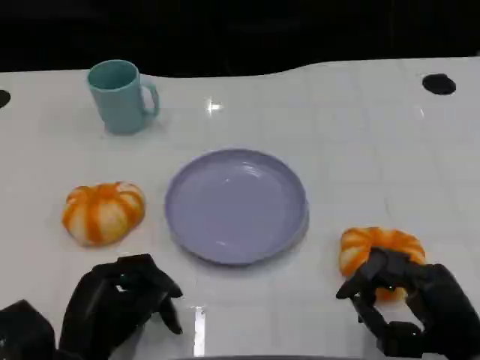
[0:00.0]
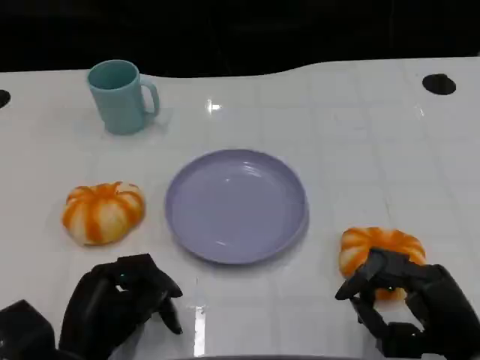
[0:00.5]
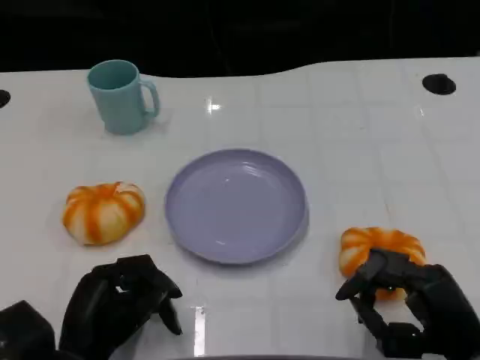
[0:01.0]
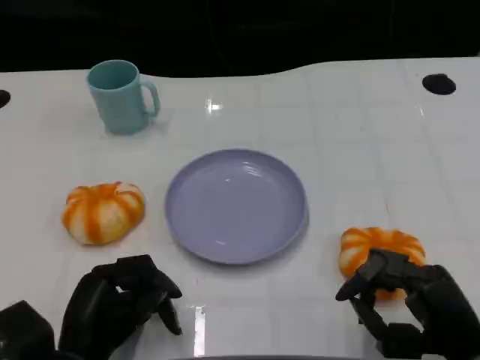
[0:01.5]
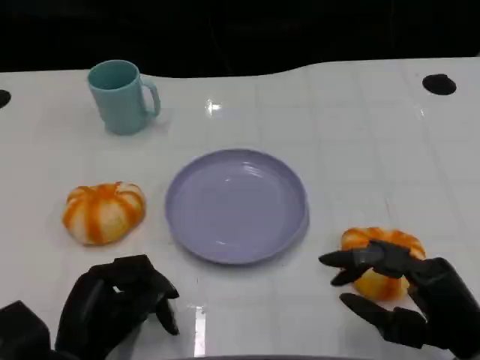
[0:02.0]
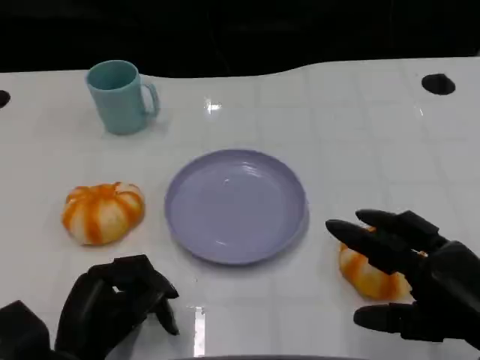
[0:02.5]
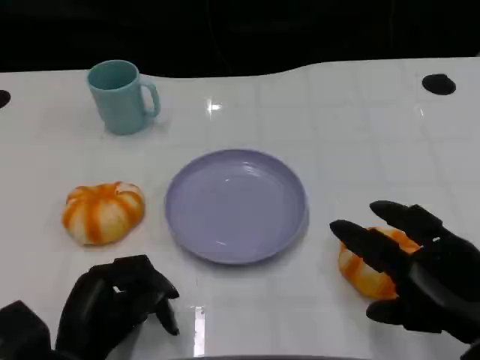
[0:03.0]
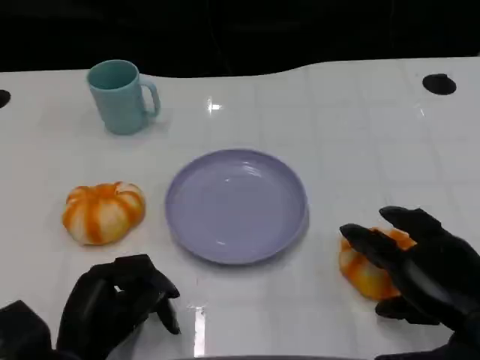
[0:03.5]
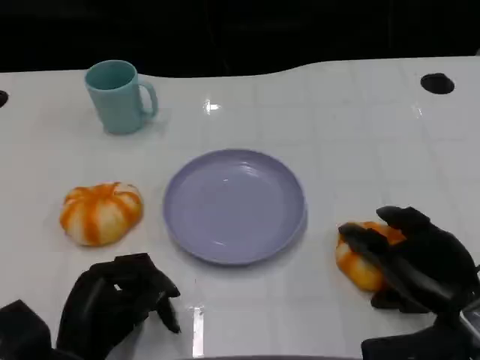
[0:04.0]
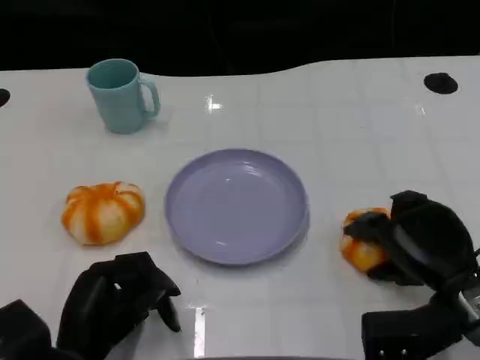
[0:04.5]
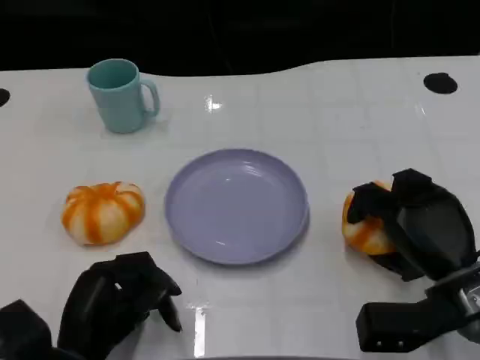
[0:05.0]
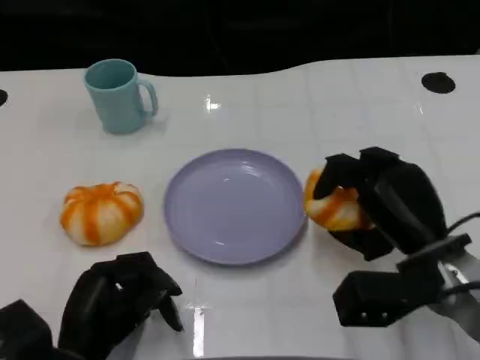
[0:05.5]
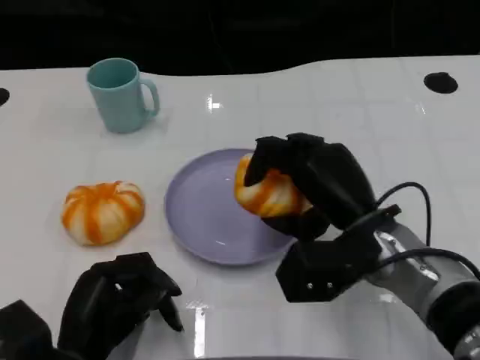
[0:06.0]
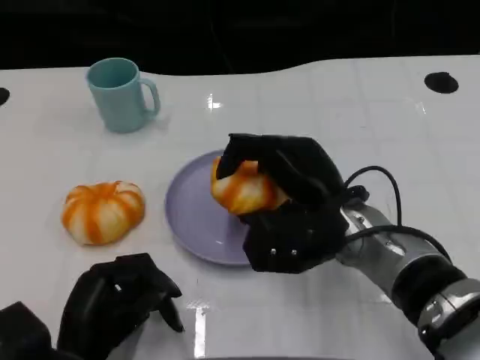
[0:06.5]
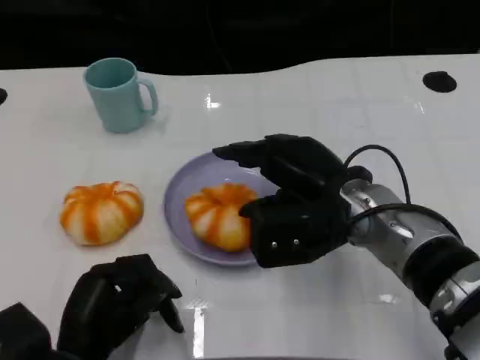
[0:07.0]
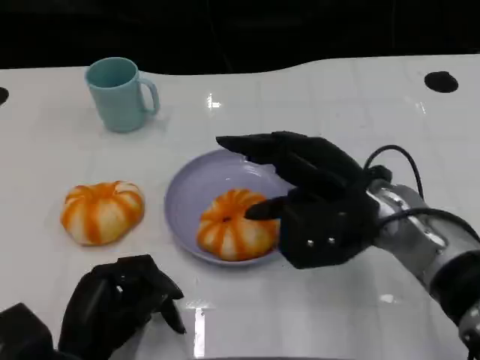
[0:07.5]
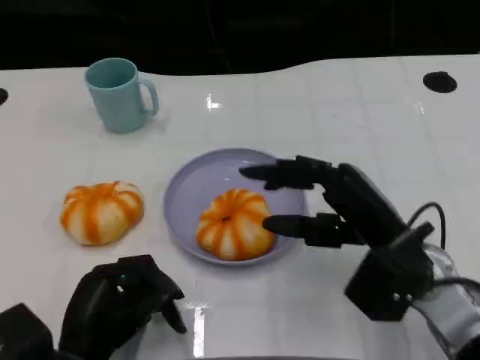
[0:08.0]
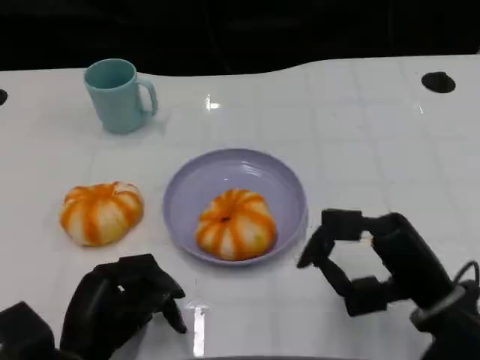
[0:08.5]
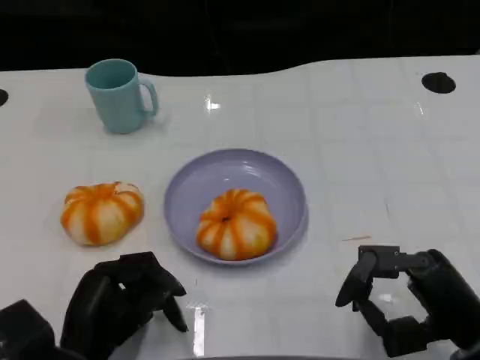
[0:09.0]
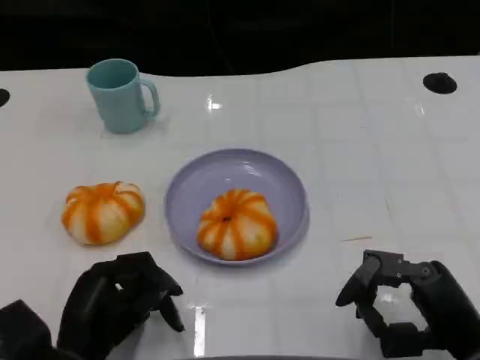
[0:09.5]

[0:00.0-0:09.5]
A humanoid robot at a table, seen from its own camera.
Task of the whole recording: Grasp the bread from the table and place it into the plate.
0.0 to 2.0 s: The hands stay close to where they were, moving slightly.
4.0 to 5.5 s: The right hand shifts by roughly 5 cm.
5.5 to 7.5 s: The right hand heads to the left, covering some 5 cm.
7.5 to 9.5 s: The right hand moves backward, to the right and downward, approximately 20 cm.

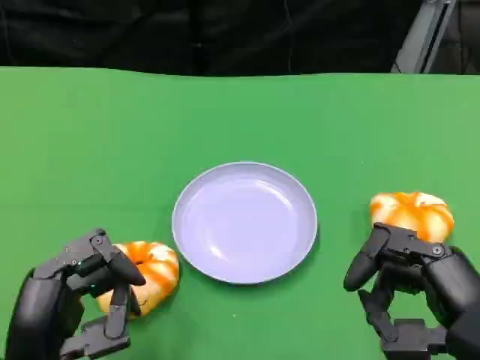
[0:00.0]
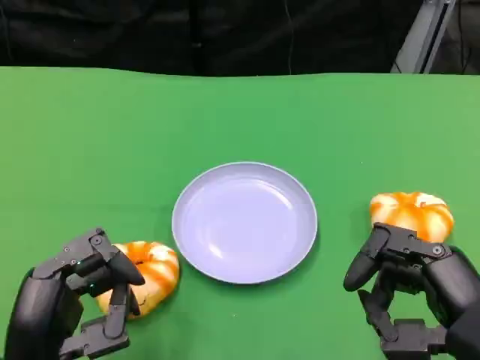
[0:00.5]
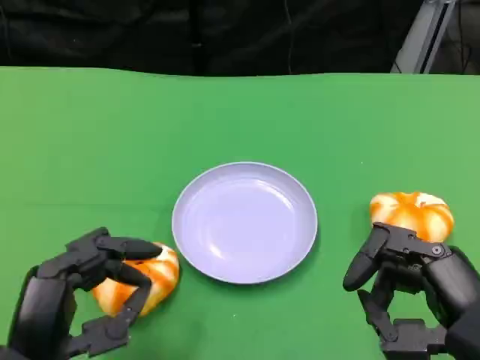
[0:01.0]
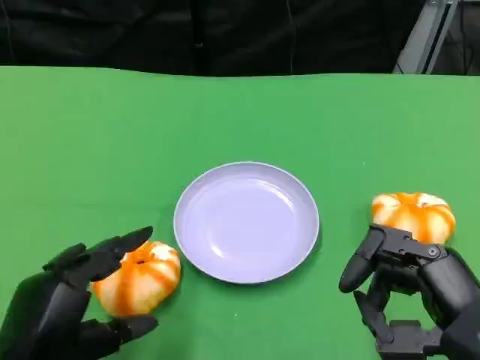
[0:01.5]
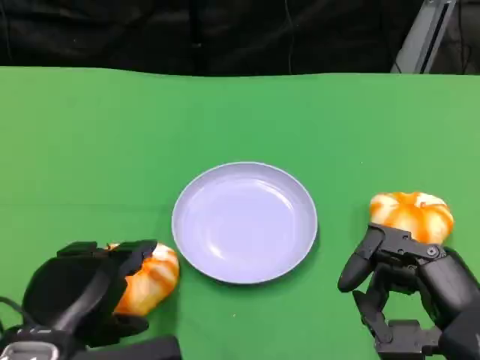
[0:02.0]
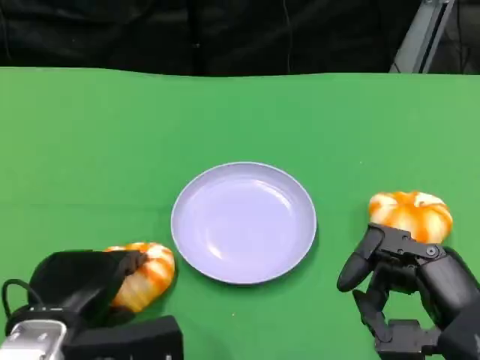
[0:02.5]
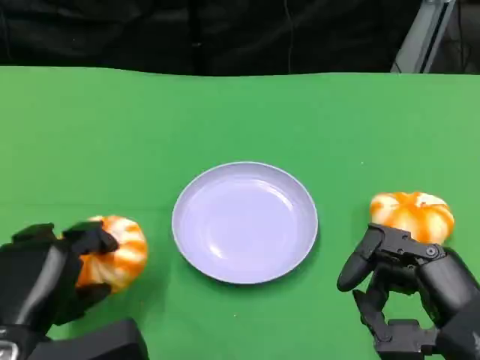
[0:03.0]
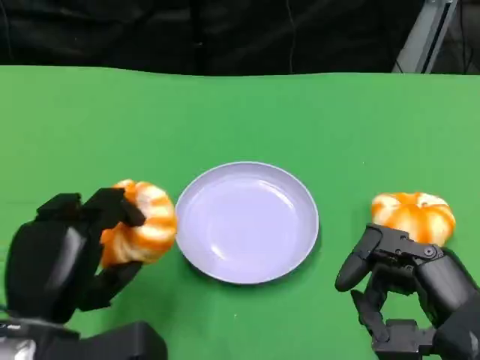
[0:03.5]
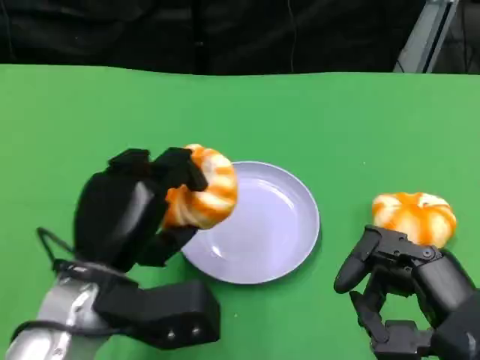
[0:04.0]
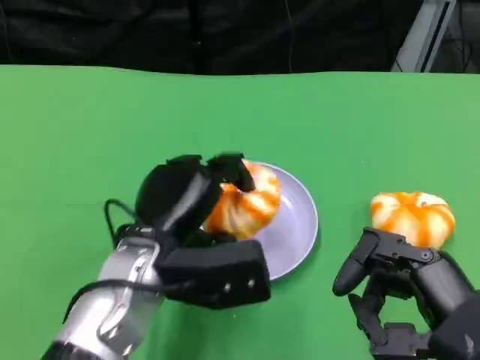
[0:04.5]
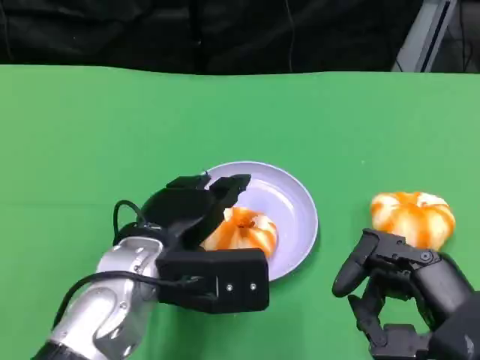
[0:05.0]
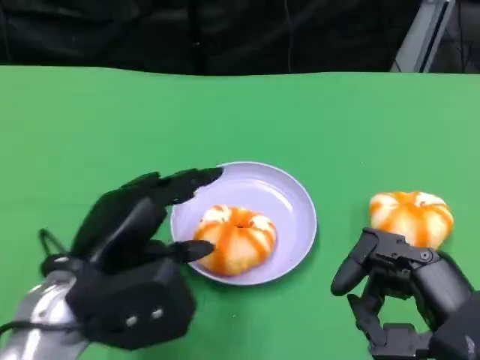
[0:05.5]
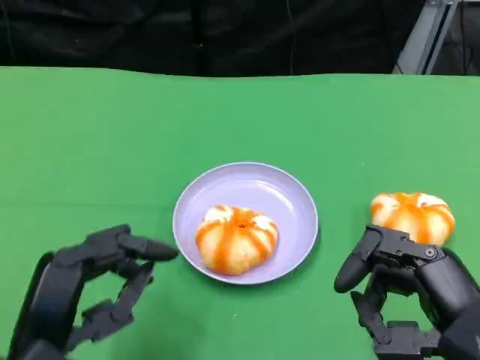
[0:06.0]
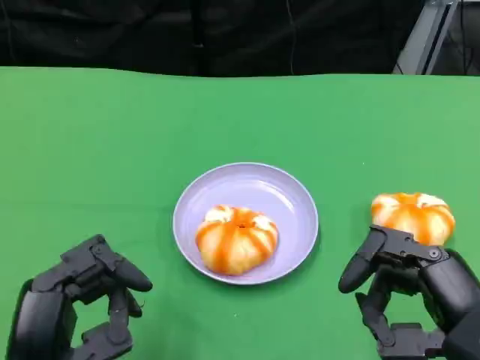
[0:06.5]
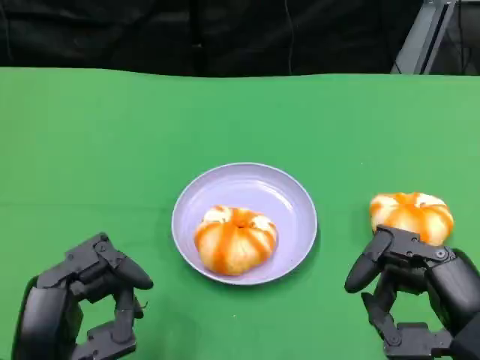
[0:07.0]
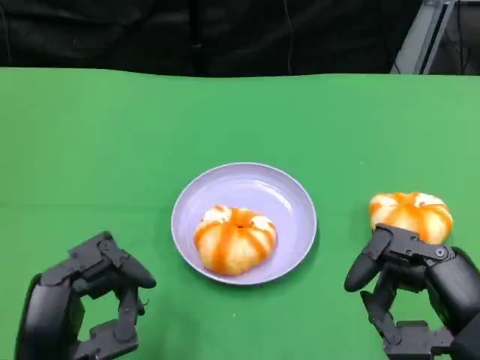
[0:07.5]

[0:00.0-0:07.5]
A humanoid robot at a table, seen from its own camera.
Task of the whole recording: Grasp the bread from the table and place it into the plate.
2.0 to 4.0 s: The left hand is displaced forward by some 5 cm.
5.5 to 7.5 s: The left hand is displaced backward by roughly 5 cm.

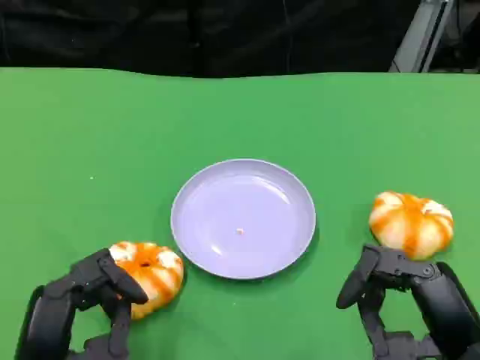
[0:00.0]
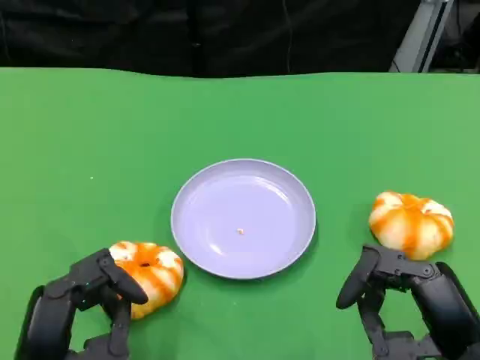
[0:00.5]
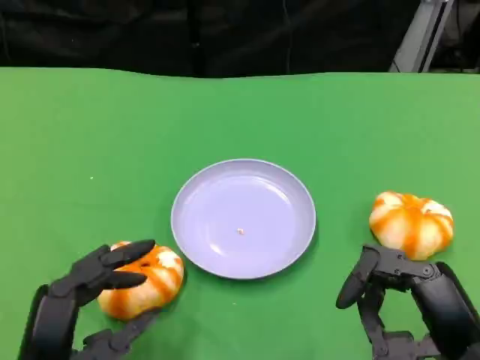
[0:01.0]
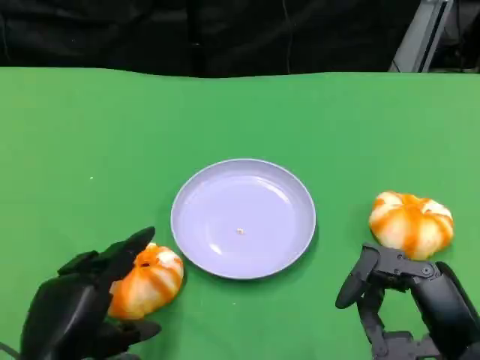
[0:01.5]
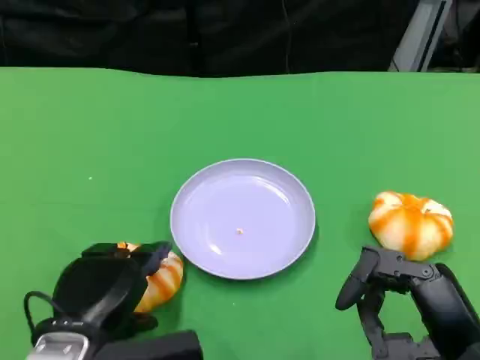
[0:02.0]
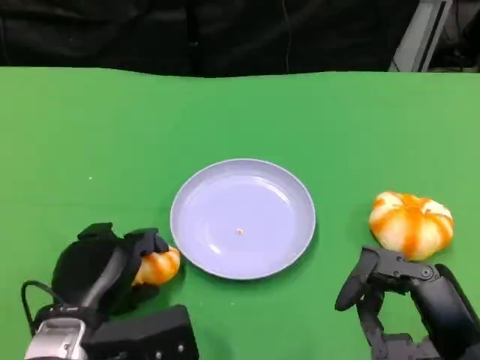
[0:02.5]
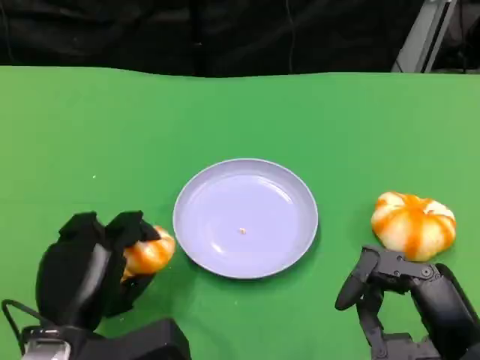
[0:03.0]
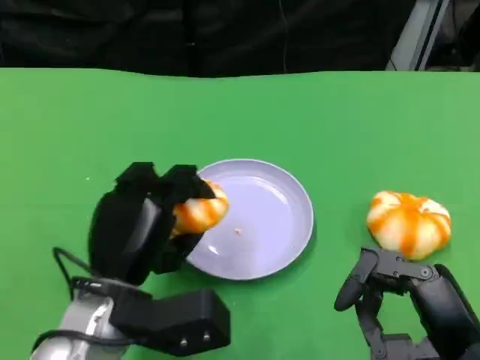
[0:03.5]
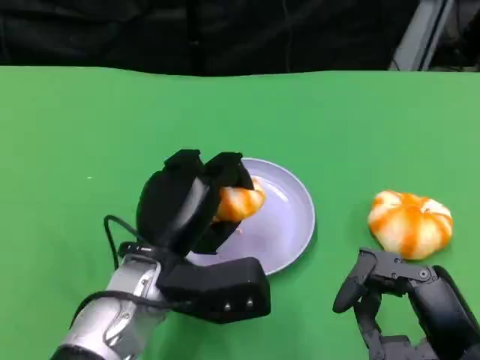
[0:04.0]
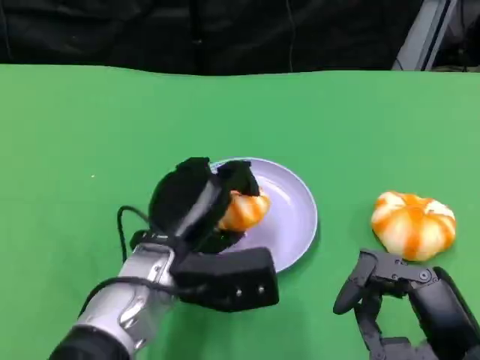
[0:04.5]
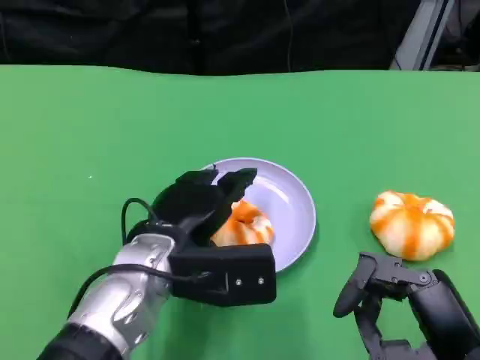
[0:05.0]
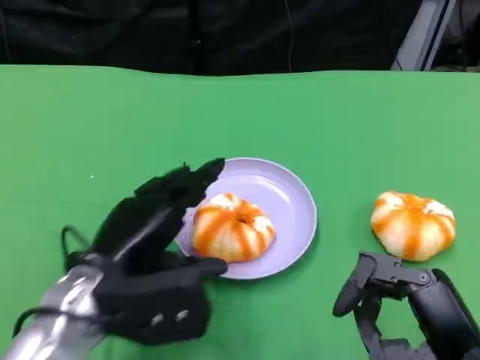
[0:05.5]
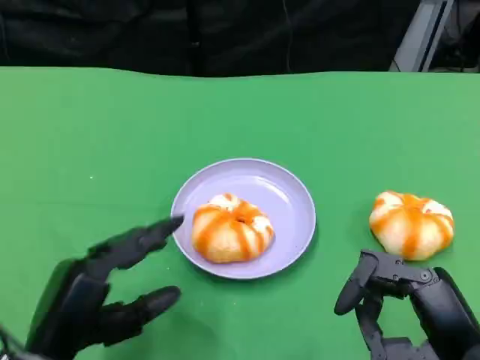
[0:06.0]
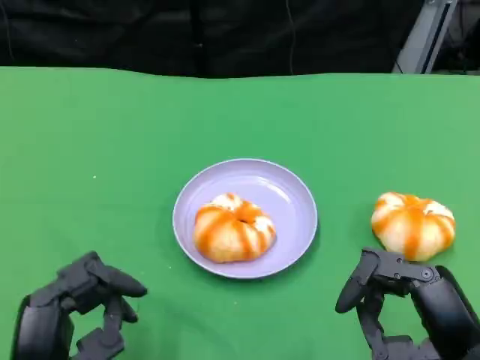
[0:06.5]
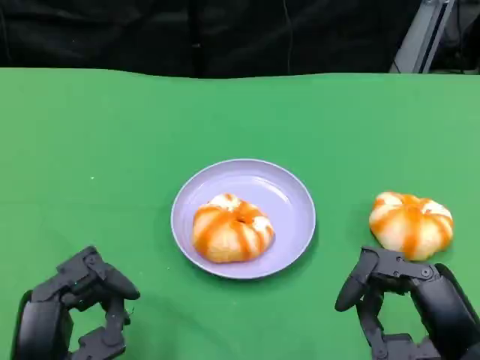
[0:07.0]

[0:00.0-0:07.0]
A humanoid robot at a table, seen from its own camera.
Task of the whole recording: Grasp the bread from the table and place it into the plate.
0.0 to 2.0 s: The left hand is displaced forward by approximately 5 cm.
2.0 to 3.5 s: The left hand ends up roughly 5 cm from where it was.
3.5 to 5.0 s: The left hand changes place by roughly 5 cm.
5.0 to 7.0 s: The left hand travels backward and to the left by approximately 15 cm.

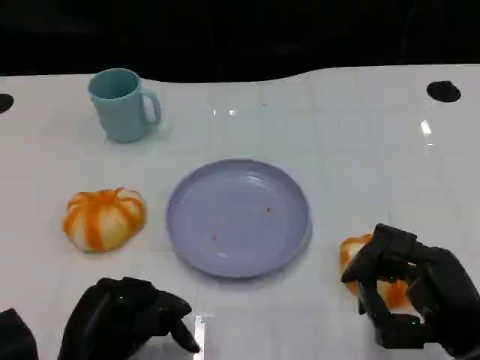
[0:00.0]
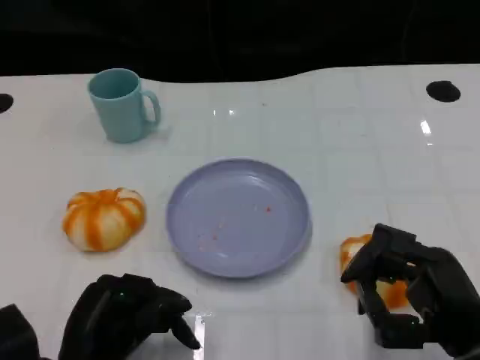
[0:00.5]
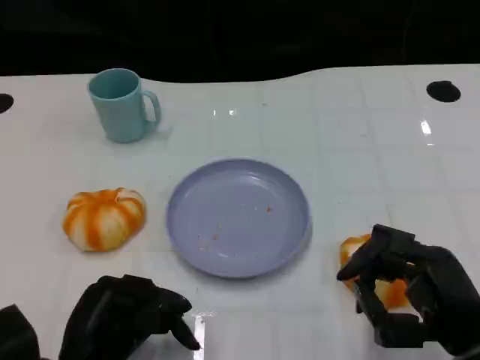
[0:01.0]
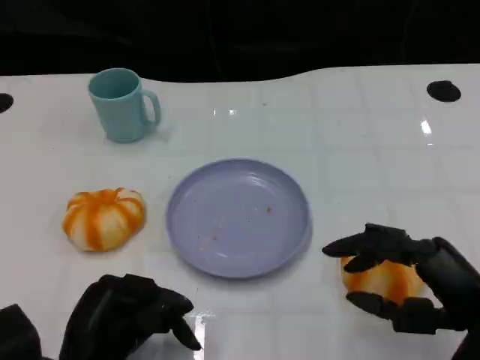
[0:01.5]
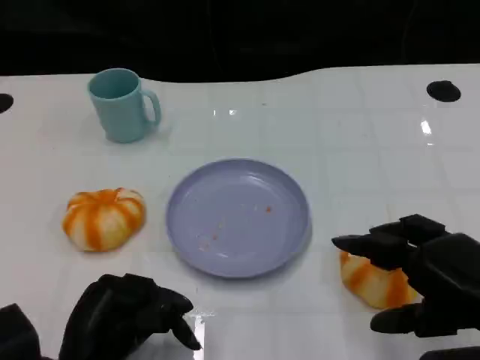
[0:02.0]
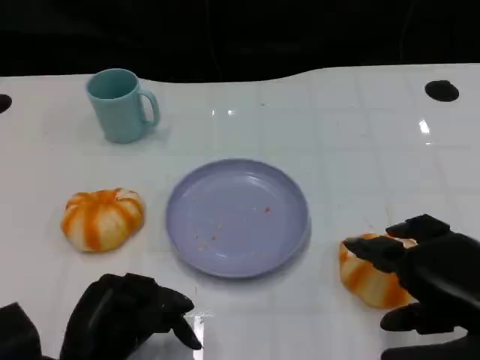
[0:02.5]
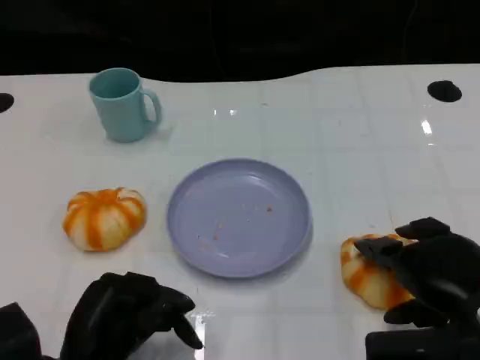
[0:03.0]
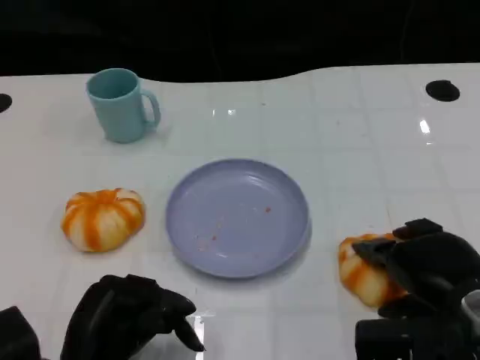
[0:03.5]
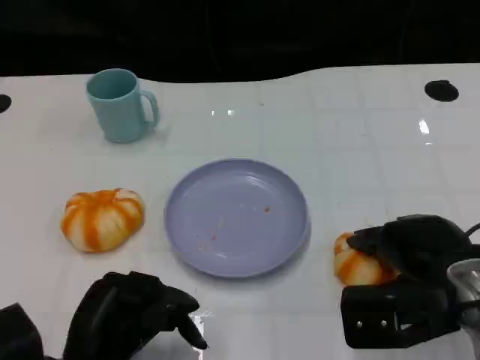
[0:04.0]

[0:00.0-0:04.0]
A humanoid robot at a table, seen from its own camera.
Task of the whole recording: Grasp the bread from the table and place it into the plate.
0.0 to 2.0 s: The right hand is displaced upward by roughly 5 cm.
2.0 to 4.0 s: The right hand heads forward, covering roughly 5 cm.
